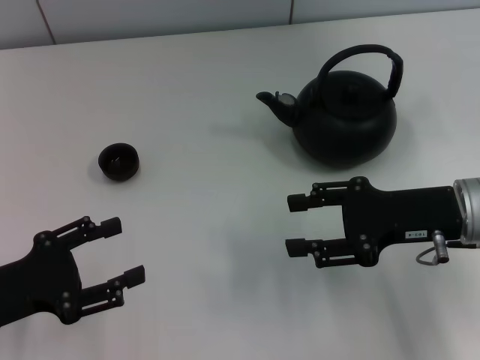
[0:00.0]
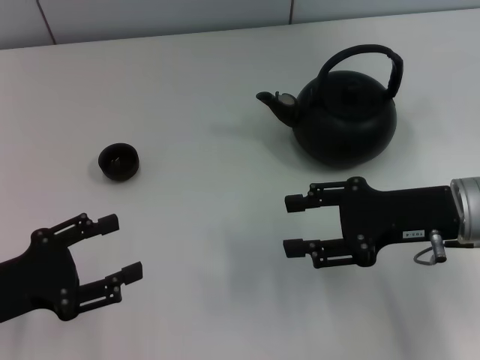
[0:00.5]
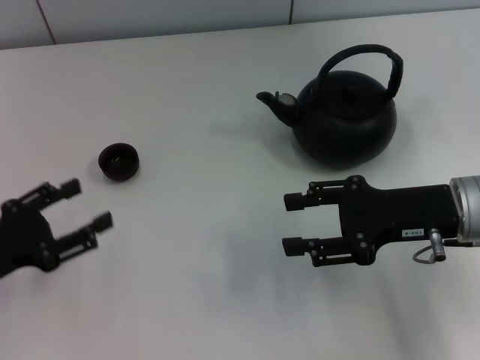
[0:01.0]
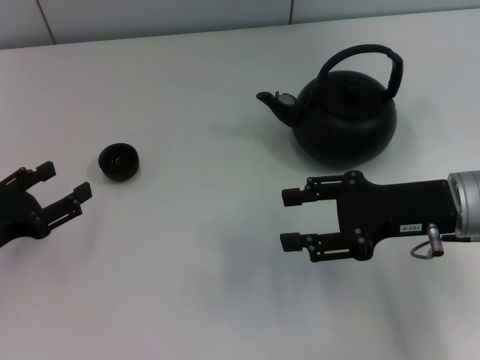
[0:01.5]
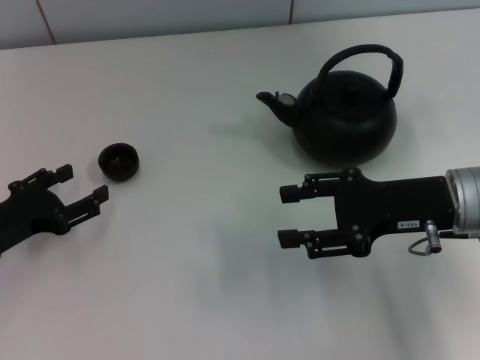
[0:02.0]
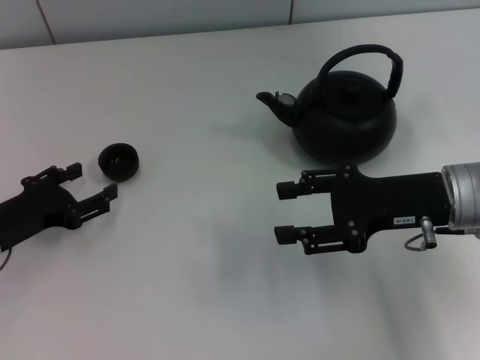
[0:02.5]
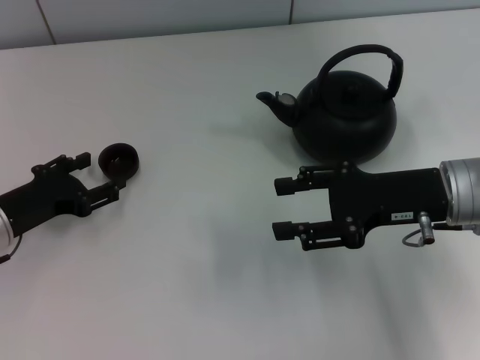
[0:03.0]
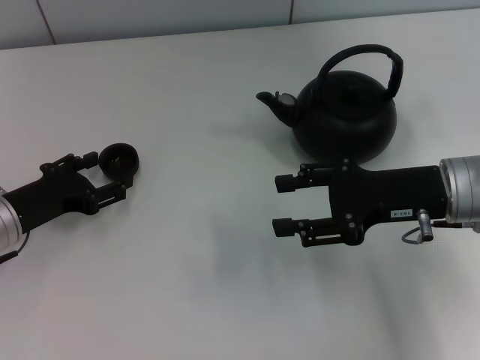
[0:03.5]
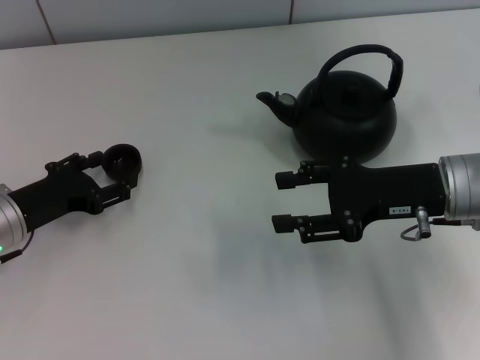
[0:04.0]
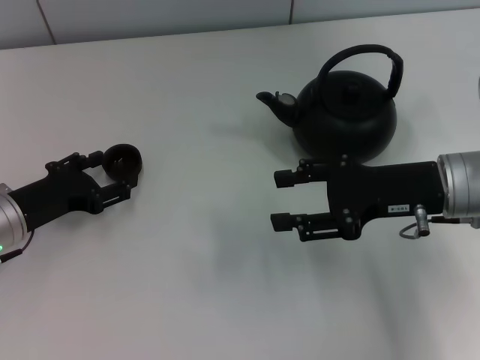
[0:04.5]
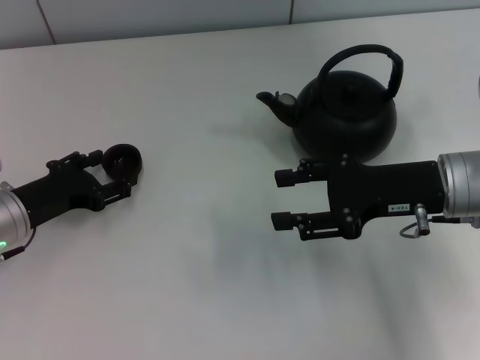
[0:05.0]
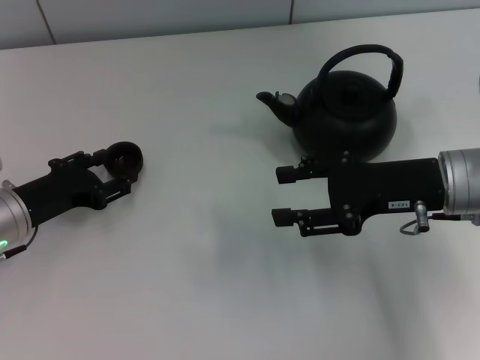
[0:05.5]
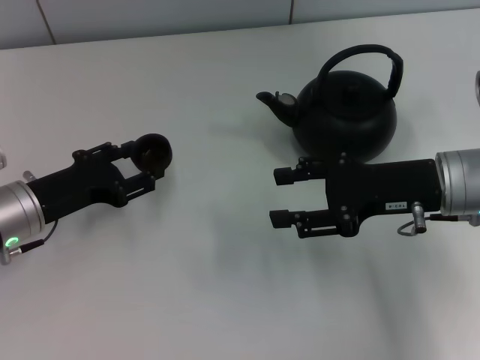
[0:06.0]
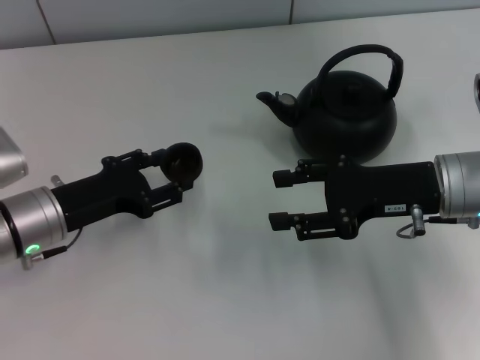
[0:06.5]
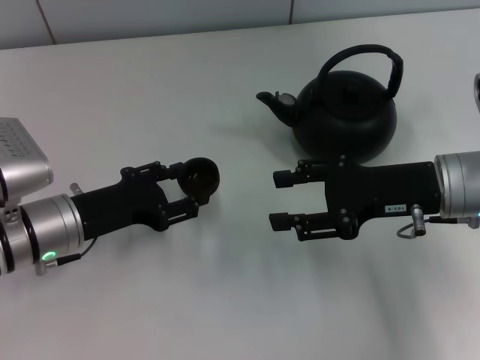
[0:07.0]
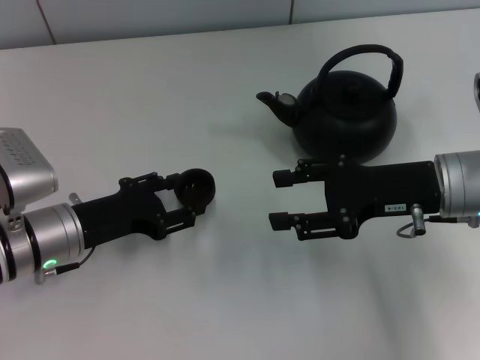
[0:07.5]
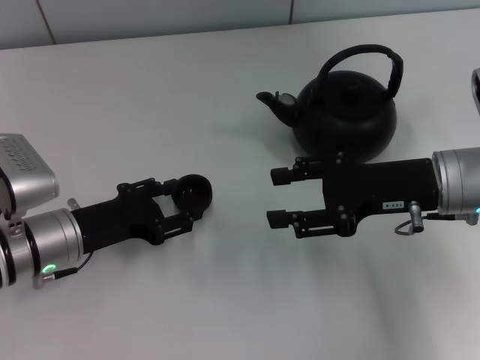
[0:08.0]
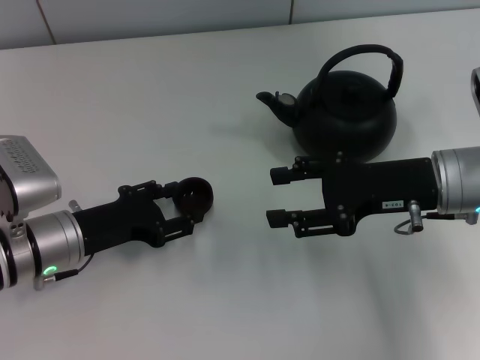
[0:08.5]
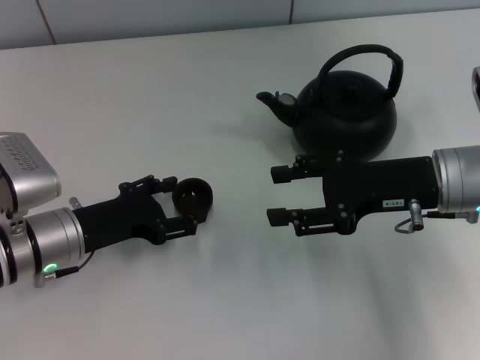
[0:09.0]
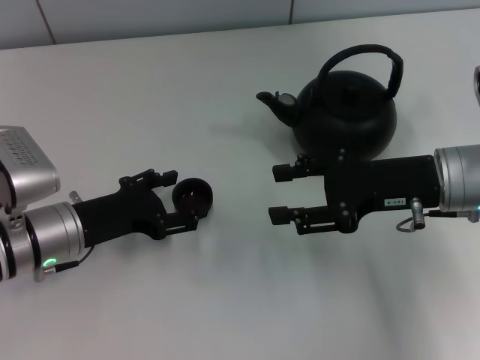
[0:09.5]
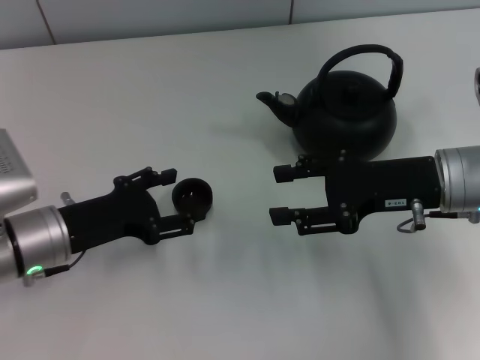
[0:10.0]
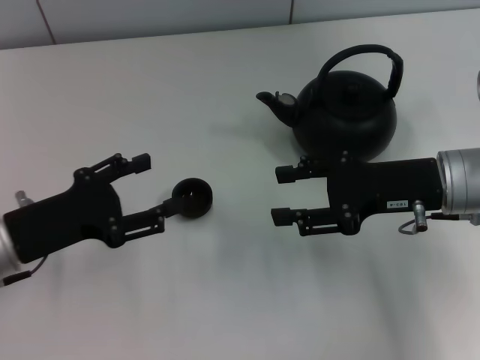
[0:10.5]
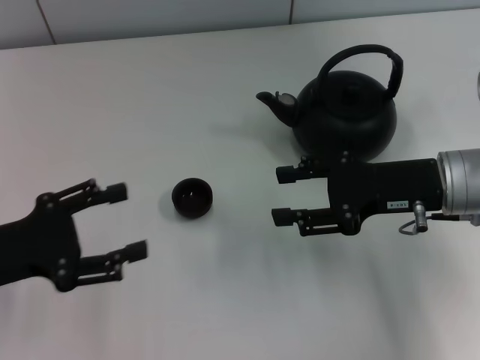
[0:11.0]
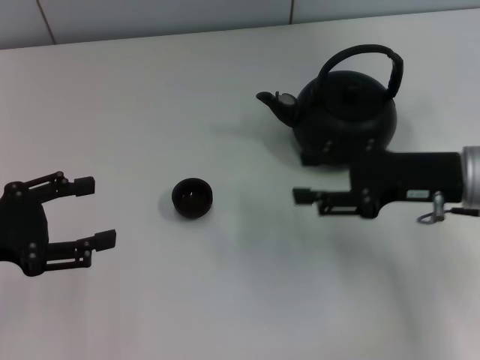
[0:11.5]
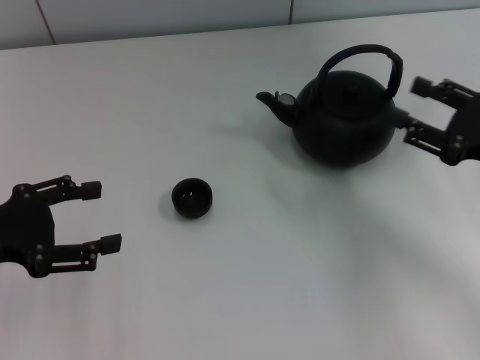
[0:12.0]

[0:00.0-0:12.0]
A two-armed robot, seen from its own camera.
Task of the whole recording: Grasp the handle of the teapot with one hand and pour tea into the teacup.
Step, 0:00.0 to 0:05.5: Pick up the teacup with the left gripper.
Step, 0:06.0 to 0:11.0: Place the teacup in the center of view with the left gripper.
0:00.0 to 0:02.0: The left gripper travels forward by some 5 cm.
0:02.0 to 0:04.0: There are only small adjustments of the grippers.
0:04.0 to 0:06.0: The left gripper closes up.
0:06.0 to 0:08.0: The grippers stay close to where they were, moving slightly.
0:08.0 to 0:10.0: The left gripper opens.
0:10.0 to 0:12.0: The left gripper travels to the left and upward by about 10 cm; the right gripper moves to the right, about 10 cm.

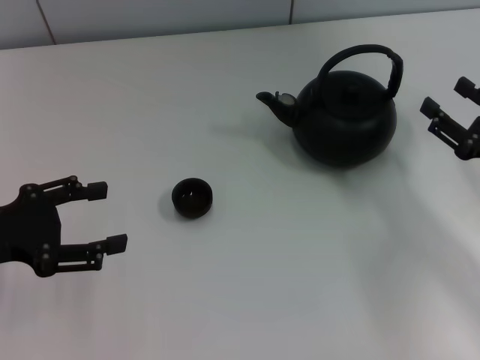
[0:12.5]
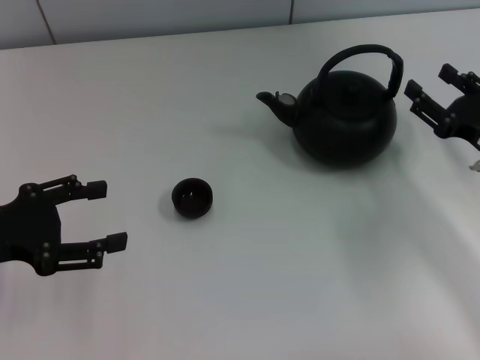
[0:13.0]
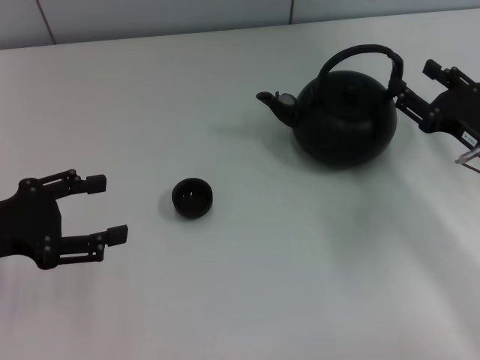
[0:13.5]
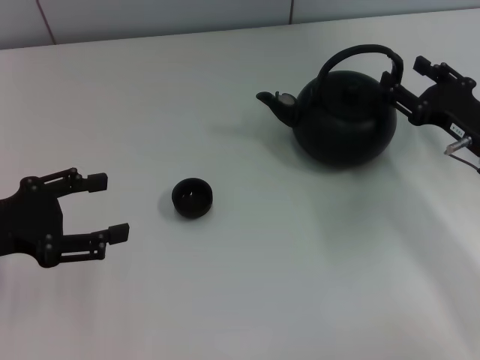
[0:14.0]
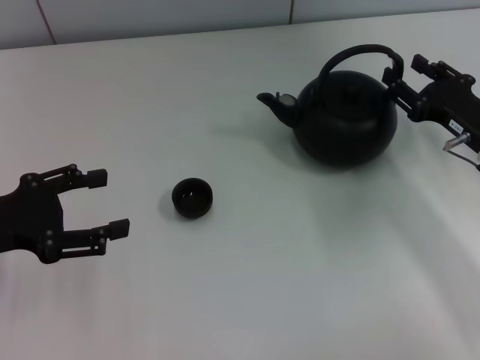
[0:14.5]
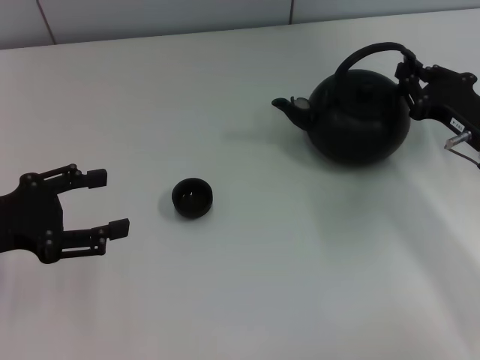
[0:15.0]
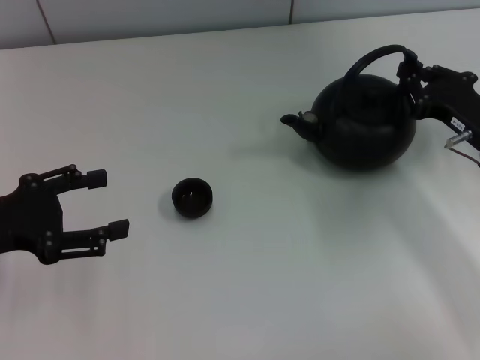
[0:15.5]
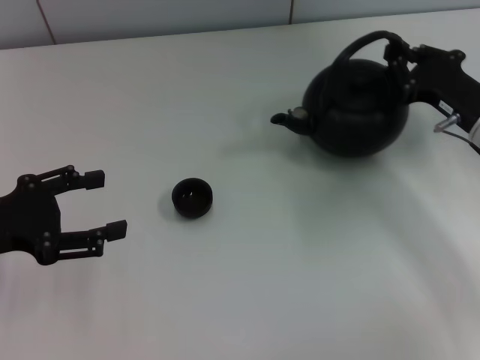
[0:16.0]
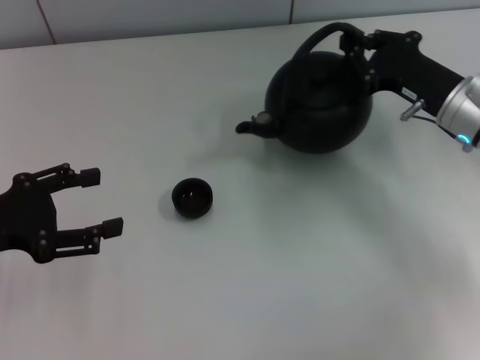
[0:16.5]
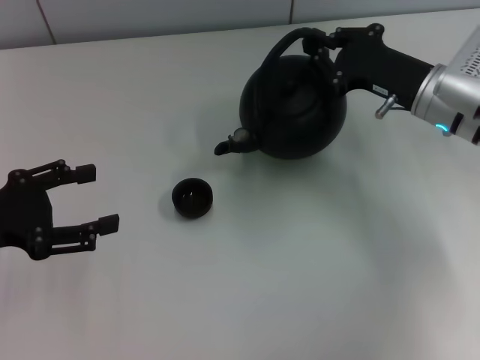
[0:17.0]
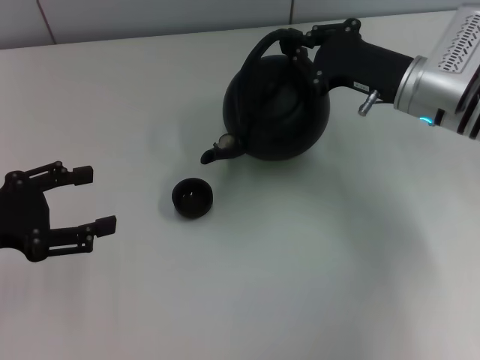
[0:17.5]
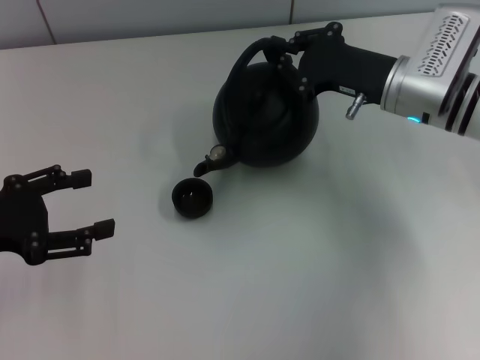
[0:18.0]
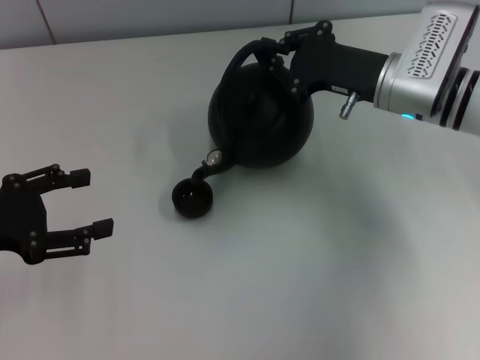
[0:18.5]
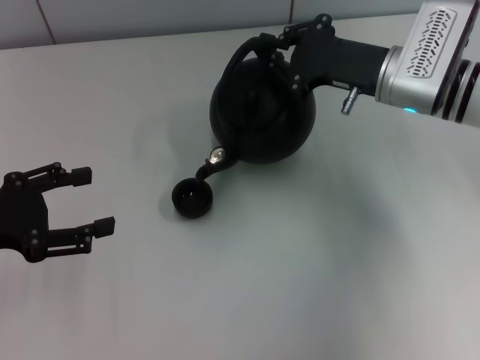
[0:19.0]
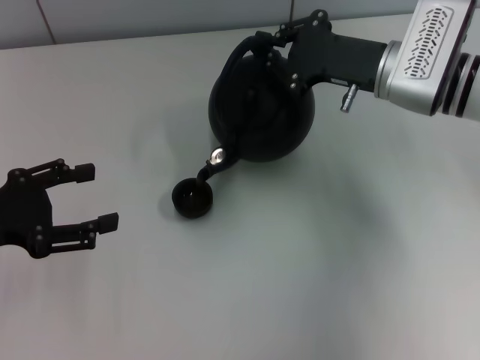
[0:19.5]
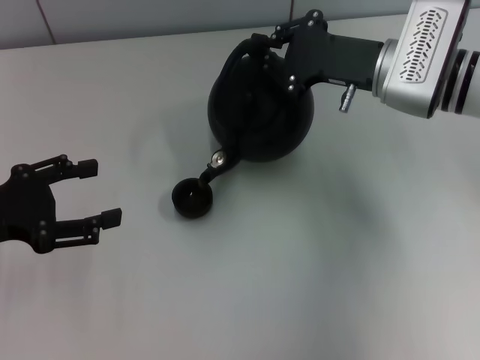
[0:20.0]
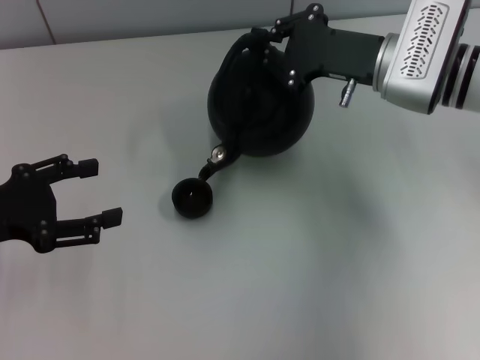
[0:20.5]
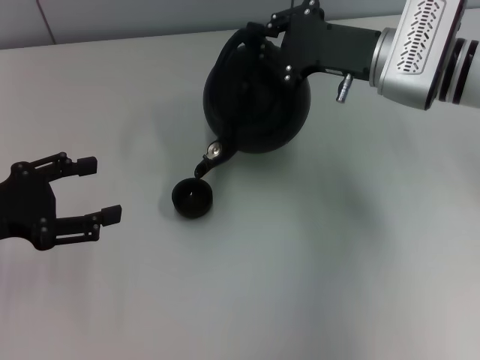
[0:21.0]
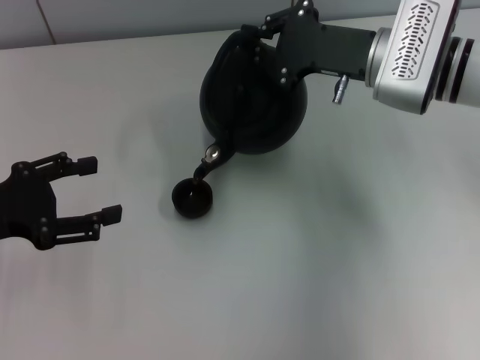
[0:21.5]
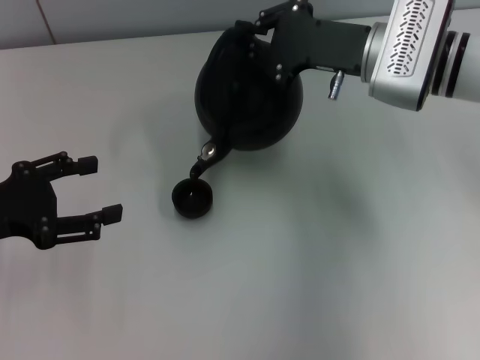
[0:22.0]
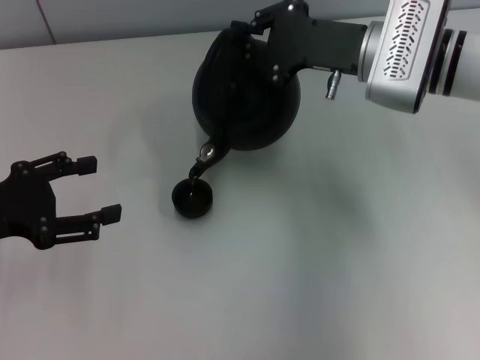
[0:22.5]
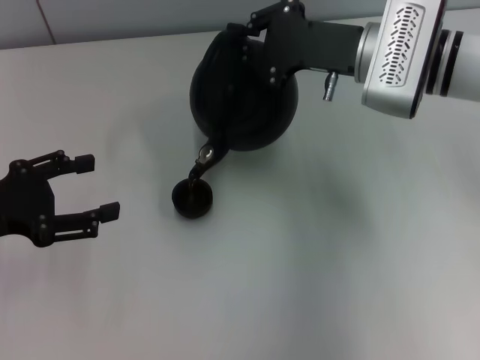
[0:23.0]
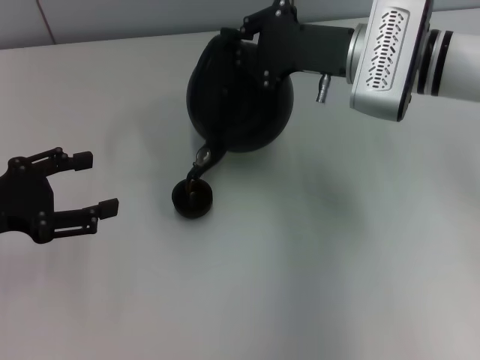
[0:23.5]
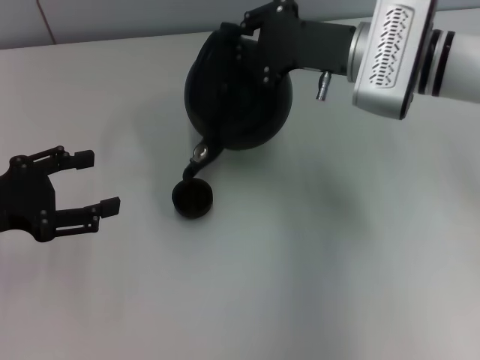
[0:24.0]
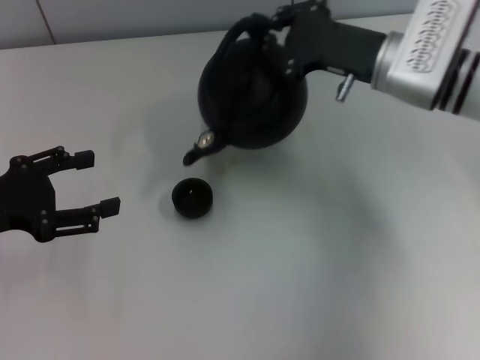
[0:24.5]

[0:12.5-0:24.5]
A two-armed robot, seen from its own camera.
Task of the whole recording: Grasp the handle of the teapot with one hand and pour tea into the teacup.
Step, 0:12.5 to 0:16.5: Pick up the teapot with the right gripper.
0:12.5 to 0:14.5: The right gripper travels forward by roughly 5 cm.
0:14.5 to 0:16.5: The right gripper ends up some 5 cm from where it was, and closes.
0:16.5 to 0:18.5: The right gripper travels to the left by roughly 5 cm.
0:18.5 to 0:22.5: The grippers move only a little.
0:22.5 to 0:24.5: There are only small adjustments of the grippers.

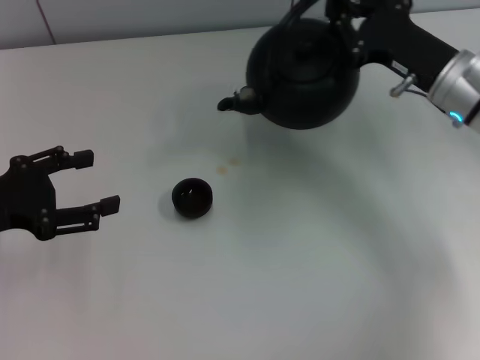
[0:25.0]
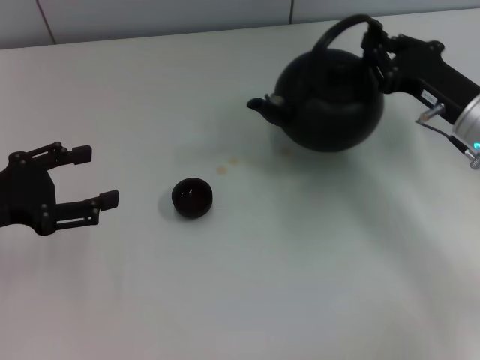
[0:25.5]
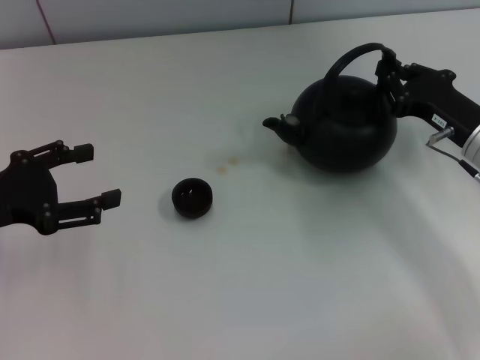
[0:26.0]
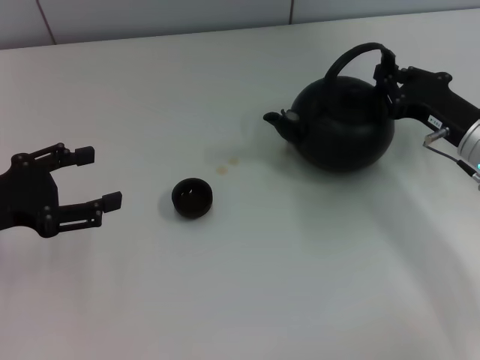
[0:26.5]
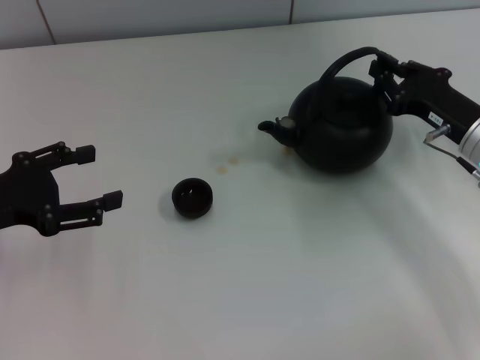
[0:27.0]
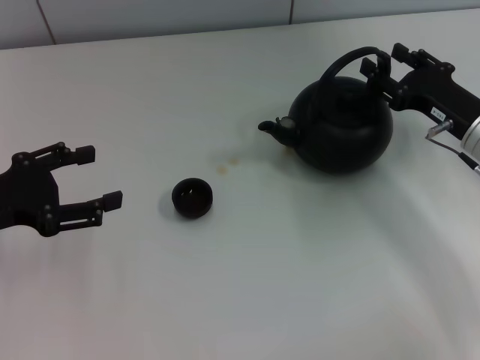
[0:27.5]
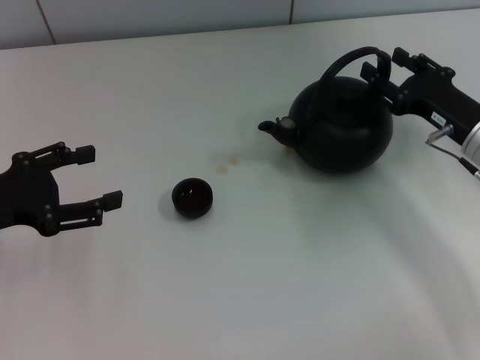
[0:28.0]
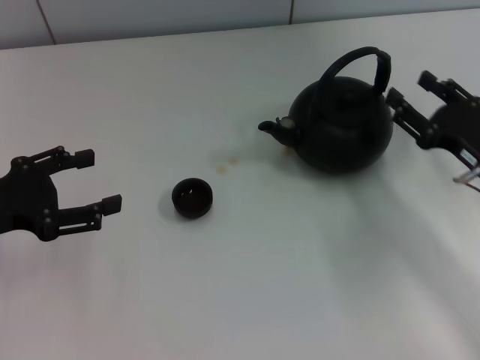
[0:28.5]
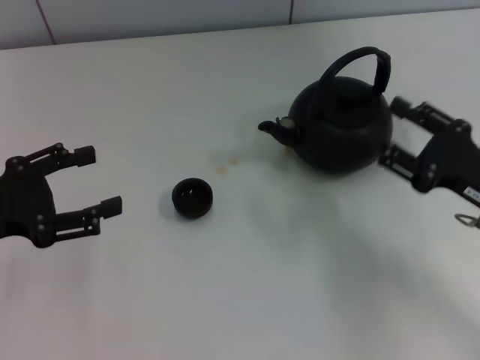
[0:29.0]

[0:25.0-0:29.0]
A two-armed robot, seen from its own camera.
Task of the whole recording: Grasp the handle of the teapot with one hand and pour tea into the teacup.
Step, 0:25.0 to 0:28.5: Put down the teapot with the right gripper.
0:25.0 to 0:27.0: The right gripper ends up about 5 cm from where it was.
0:27.0 to 0:29.0: The right gripper is displaced backward by roughly 10 cm, and opens up.
